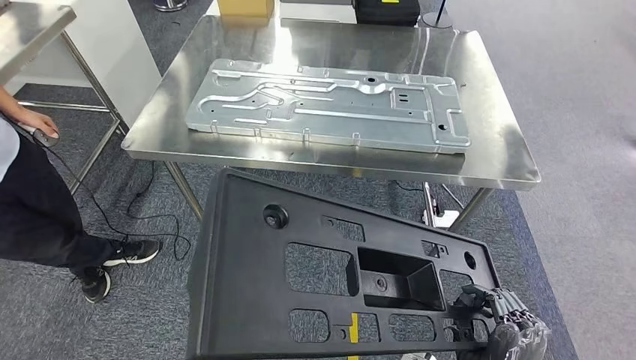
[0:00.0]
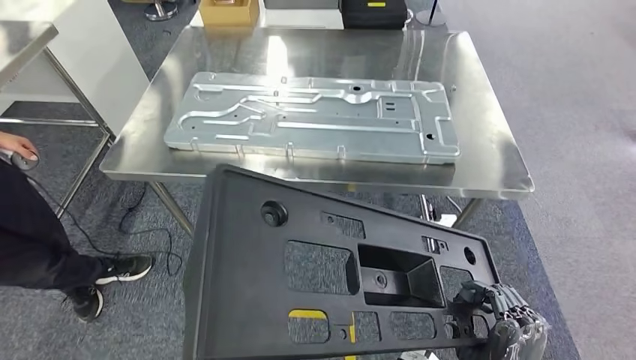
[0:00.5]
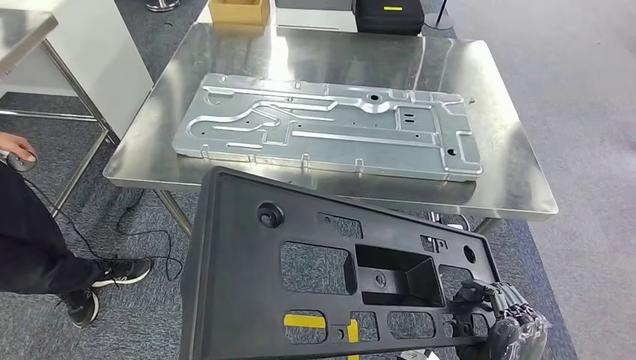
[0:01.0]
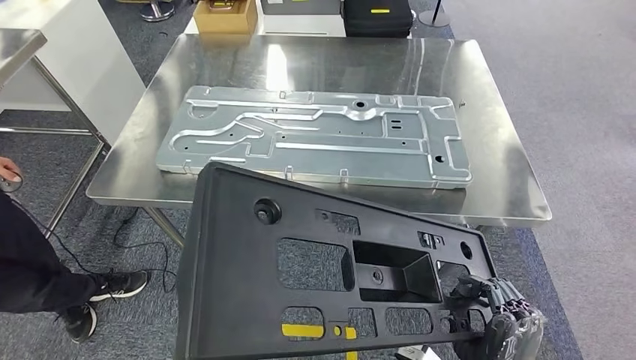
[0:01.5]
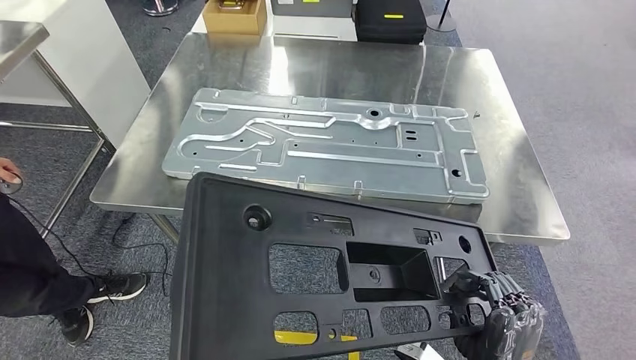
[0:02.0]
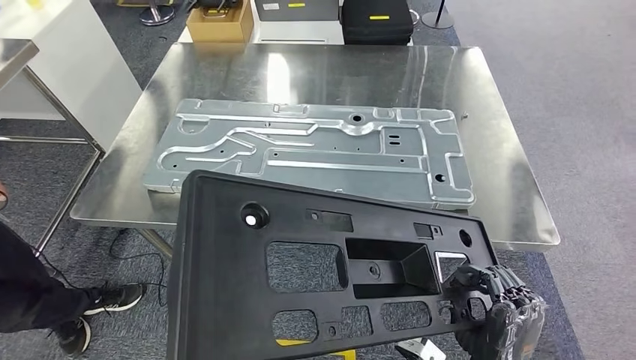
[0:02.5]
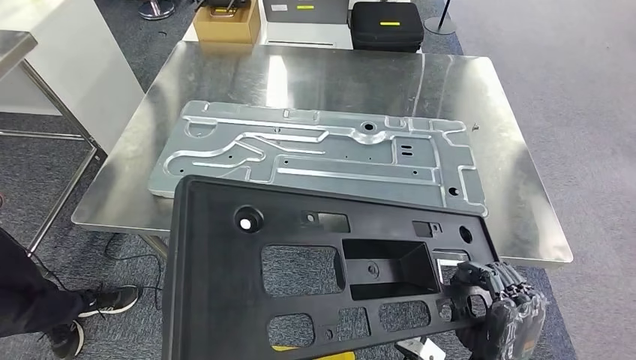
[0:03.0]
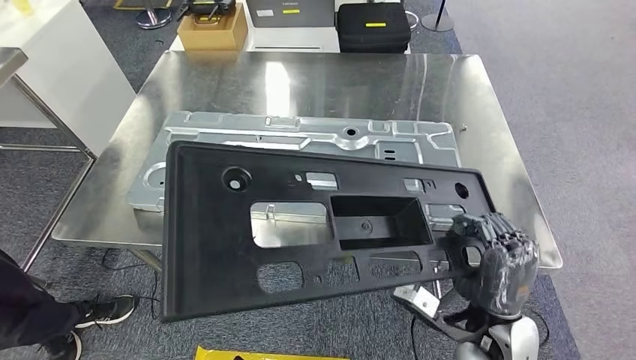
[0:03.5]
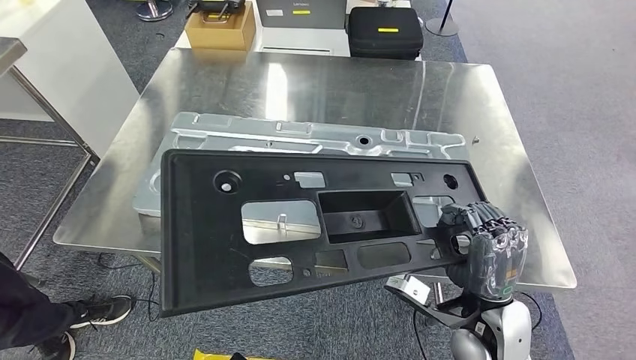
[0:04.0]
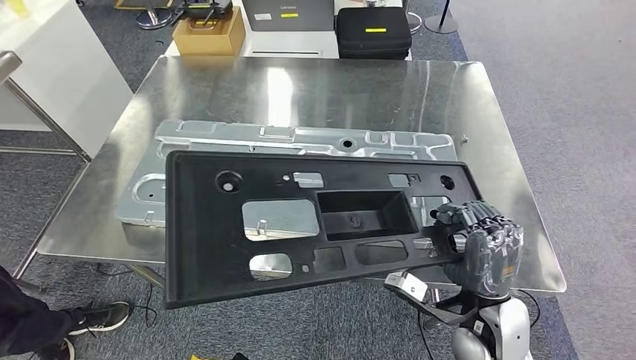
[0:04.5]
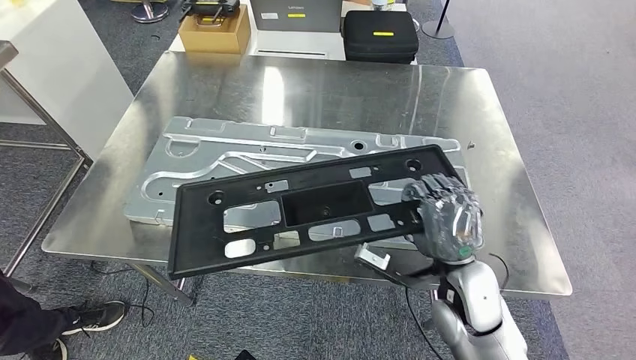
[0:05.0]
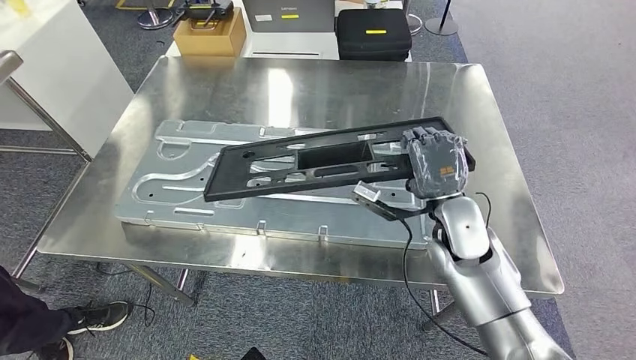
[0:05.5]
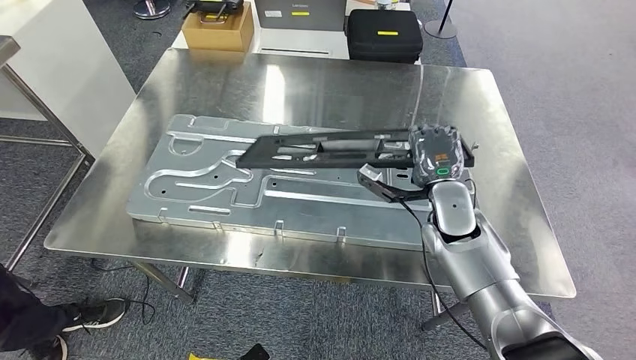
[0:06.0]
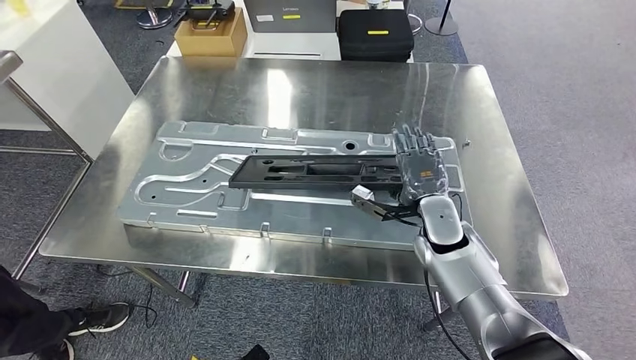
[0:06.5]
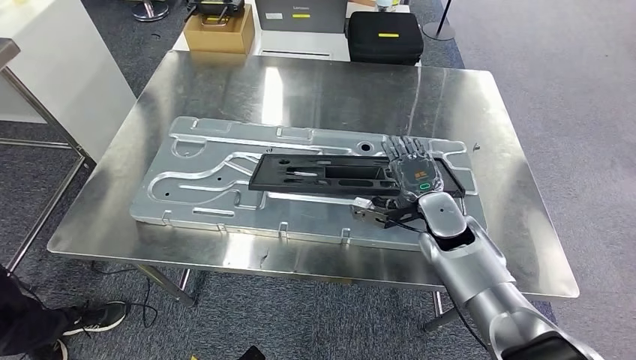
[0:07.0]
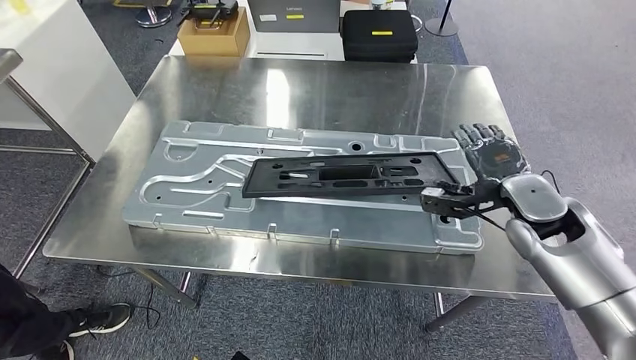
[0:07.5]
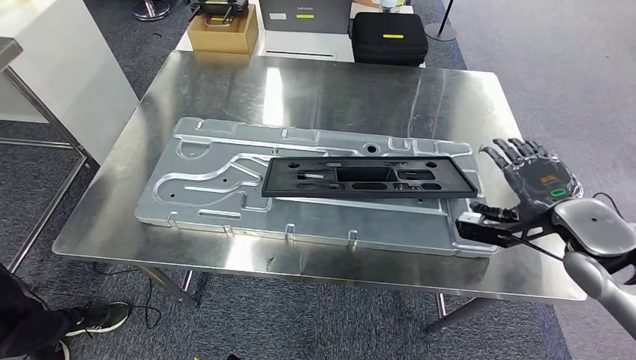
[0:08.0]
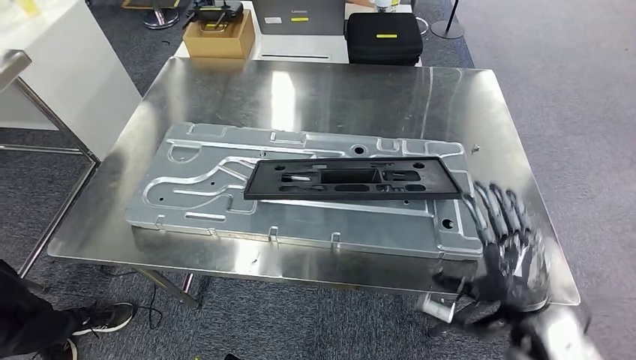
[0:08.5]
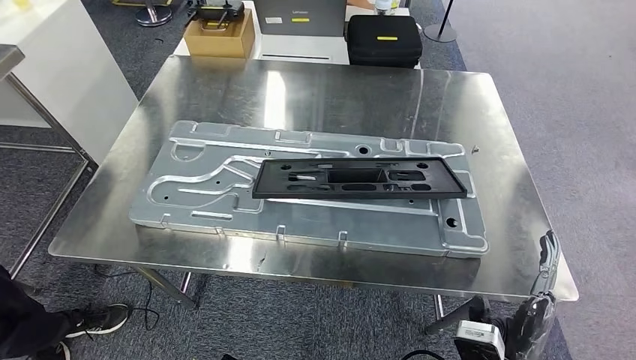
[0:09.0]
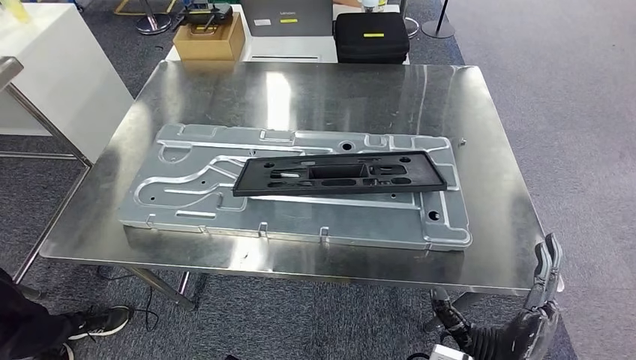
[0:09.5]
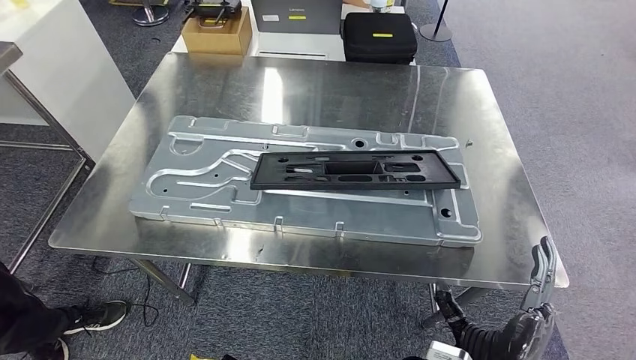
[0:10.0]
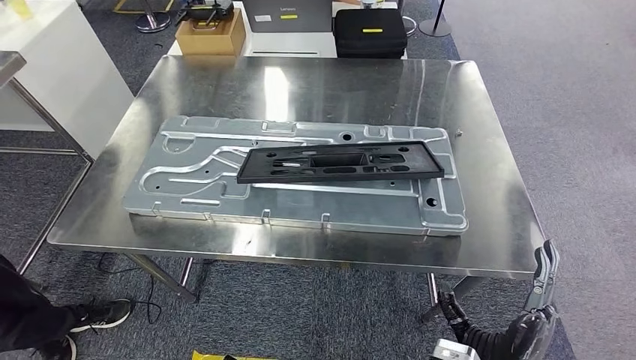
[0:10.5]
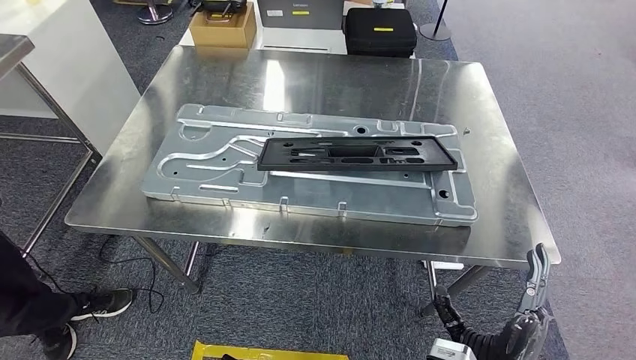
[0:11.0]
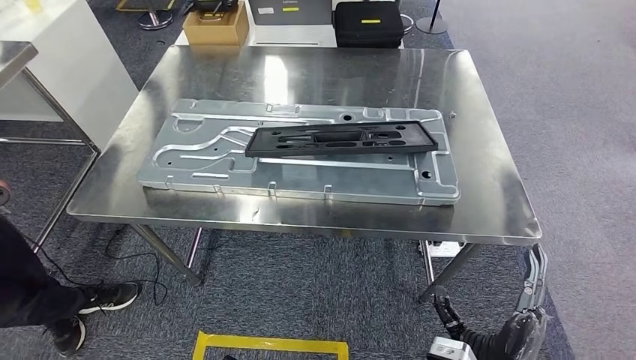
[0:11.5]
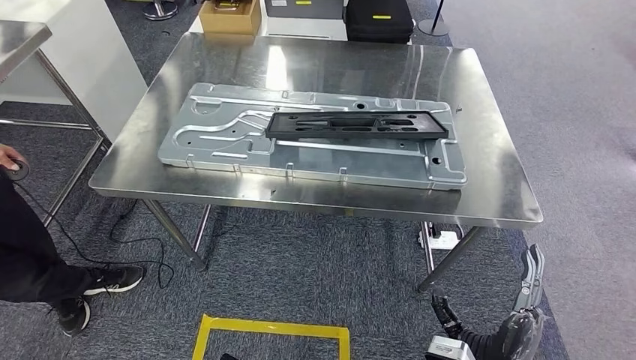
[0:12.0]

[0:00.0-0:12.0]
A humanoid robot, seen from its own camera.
Step, 0:00.0 to 0:02.0: Move the large material to the front of the workbench.
Step, 0:03.0 to 0:08.5: Insert the large material into the corresponding hole on the workbench.

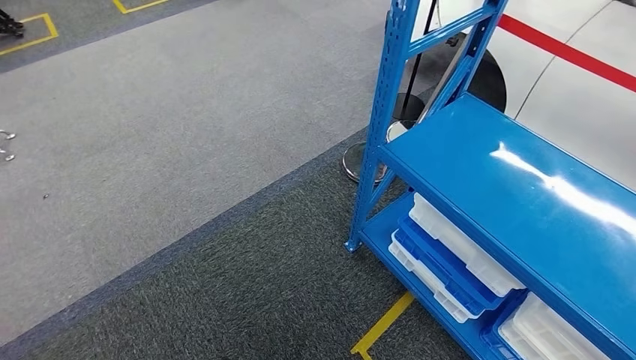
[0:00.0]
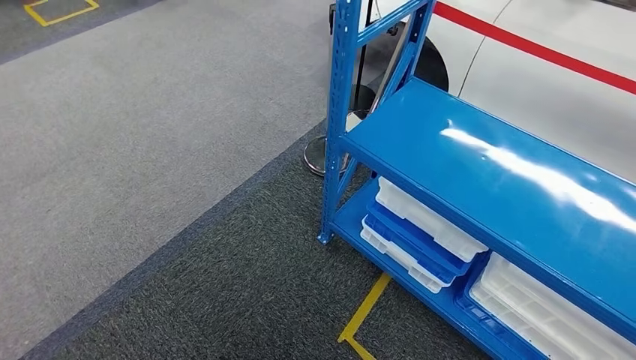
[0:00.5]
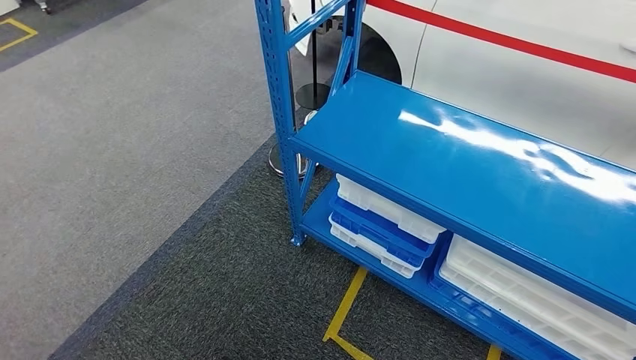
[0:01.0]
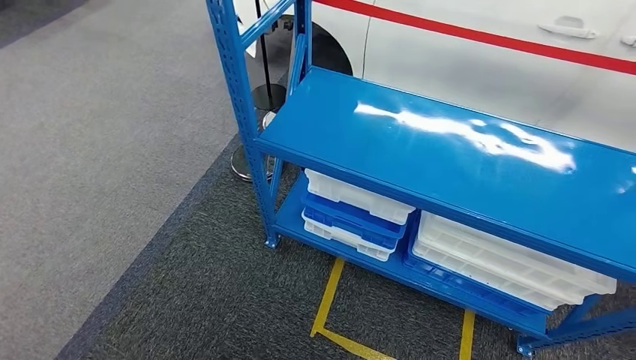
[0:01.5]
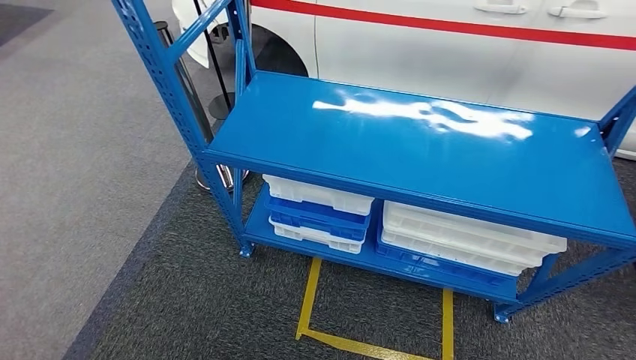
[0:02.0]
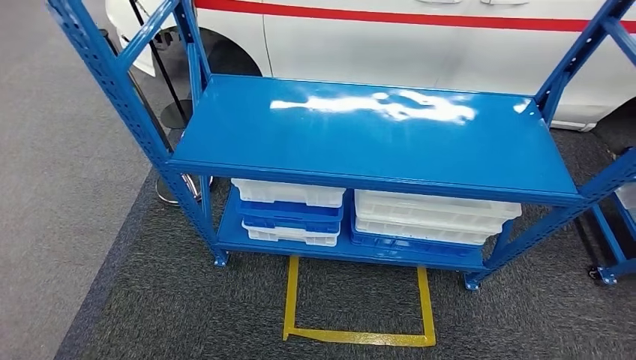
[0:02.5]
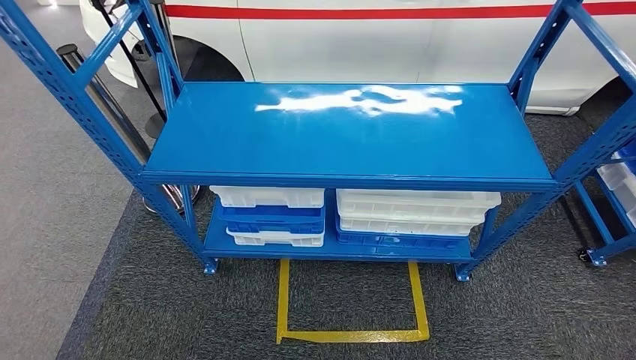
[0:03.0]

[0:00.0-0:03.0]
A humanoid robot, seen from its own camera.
Step, 0:00.0 to 0:03.0: Move to the initial position of the shelf.
